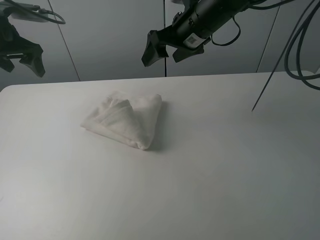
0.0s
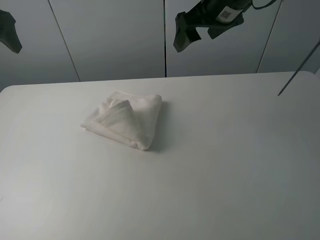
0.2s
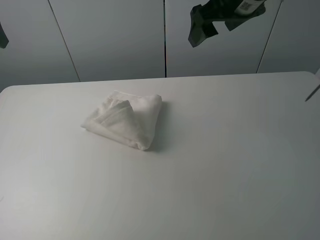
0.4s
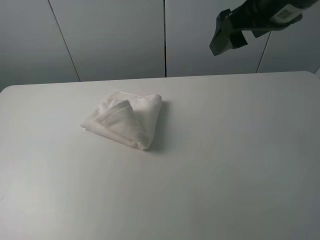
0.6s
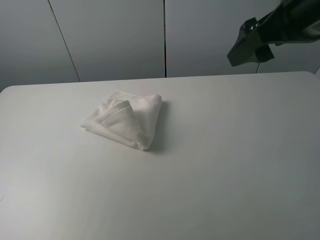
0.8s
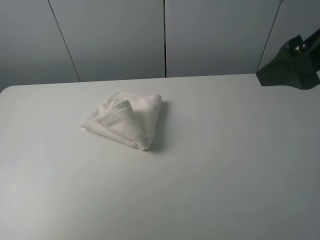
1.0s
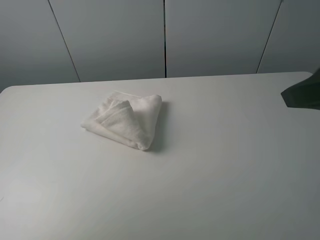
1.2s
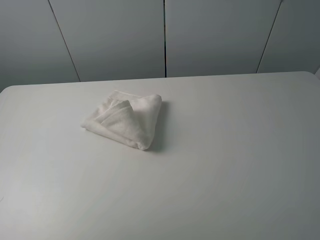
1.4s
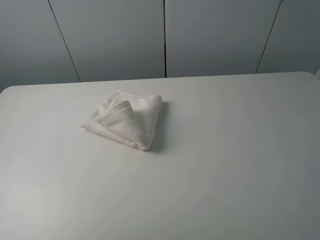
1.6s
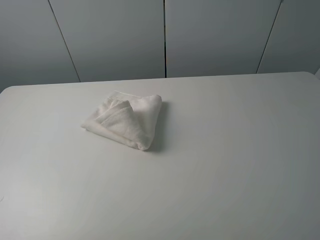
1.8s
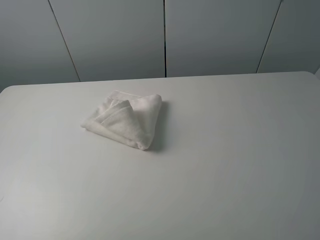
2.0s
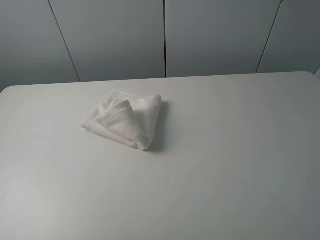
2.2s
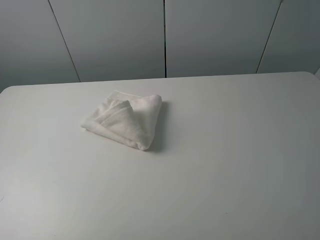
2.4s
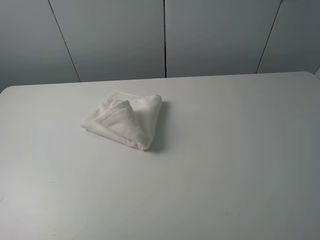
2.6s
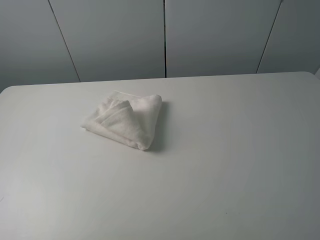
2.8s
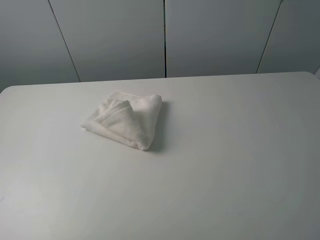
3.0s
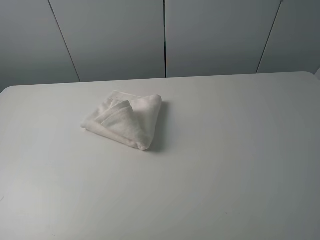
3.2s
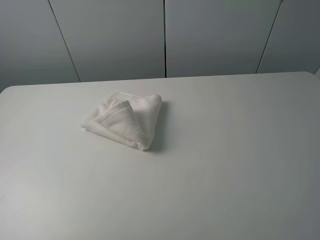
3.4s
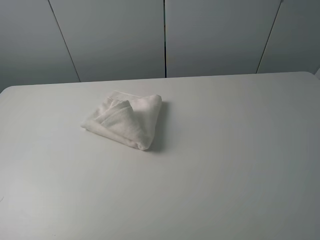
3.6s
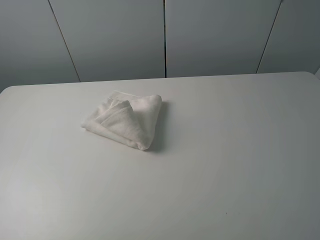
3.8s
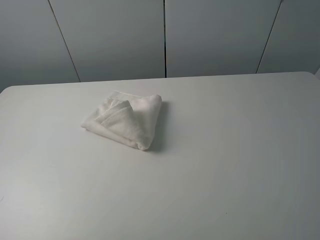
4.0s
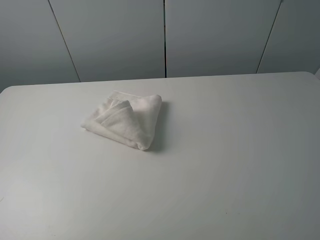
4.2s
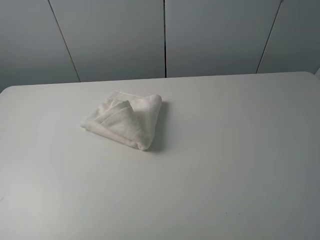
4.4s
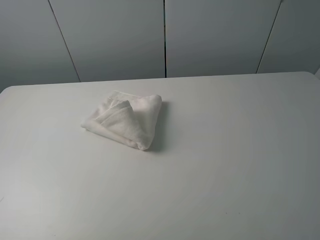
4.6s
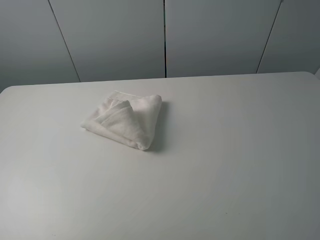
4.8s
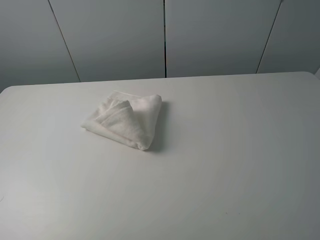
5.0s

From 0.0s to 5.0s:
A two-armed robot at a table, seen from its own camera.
Task of the whole recording: fold the towels on the table.
From 0.0s to 1.6s: The left gripper goes about 35 cm backward, while the right gripper goes some 40 cm backward and to the right.
From 3.4s to 5.0s: Both grippers stay put.

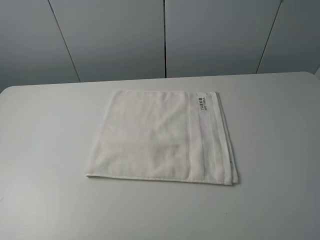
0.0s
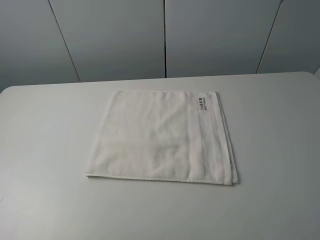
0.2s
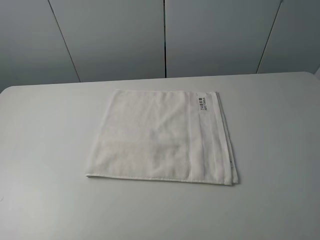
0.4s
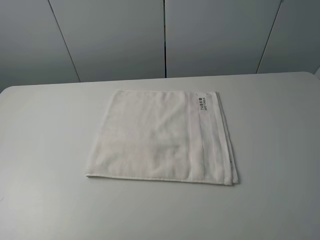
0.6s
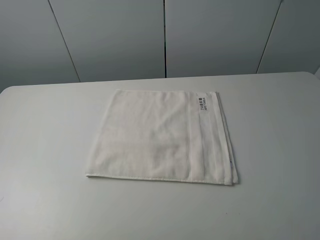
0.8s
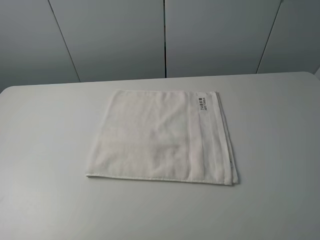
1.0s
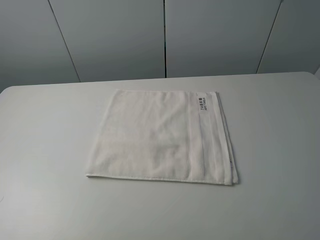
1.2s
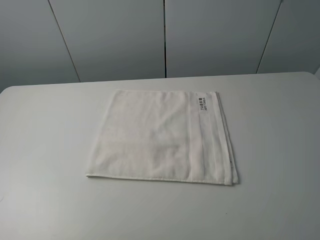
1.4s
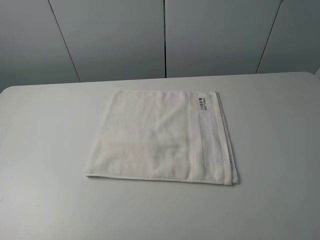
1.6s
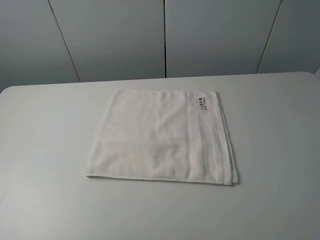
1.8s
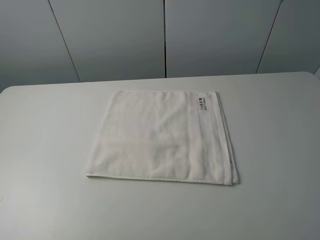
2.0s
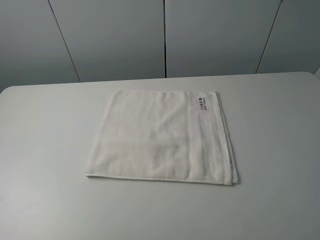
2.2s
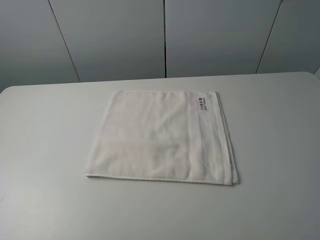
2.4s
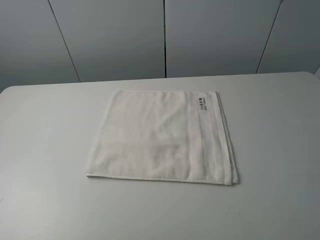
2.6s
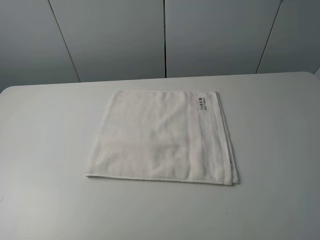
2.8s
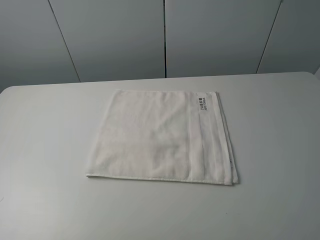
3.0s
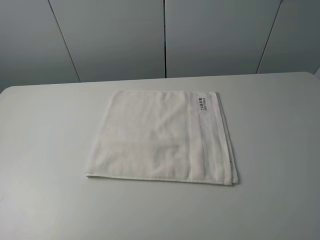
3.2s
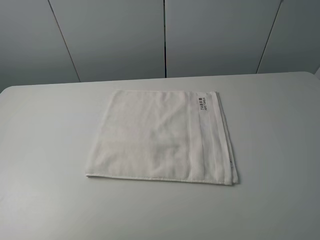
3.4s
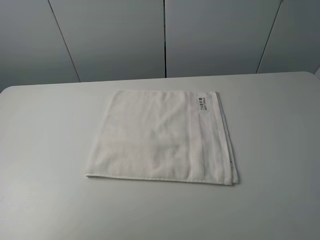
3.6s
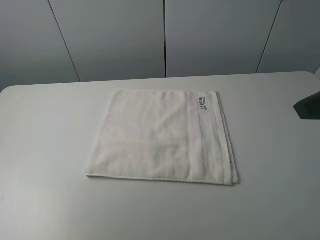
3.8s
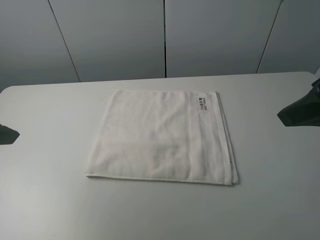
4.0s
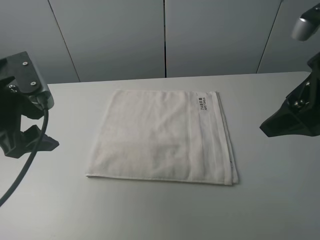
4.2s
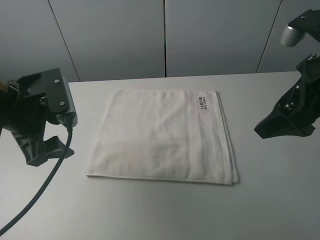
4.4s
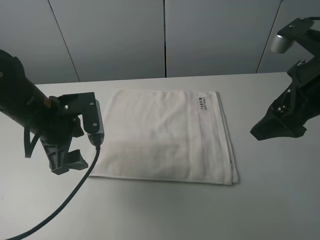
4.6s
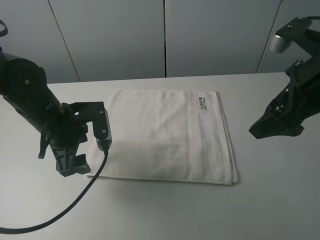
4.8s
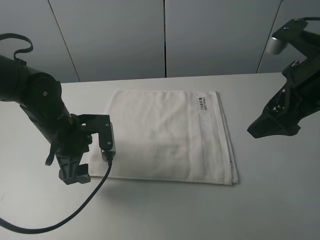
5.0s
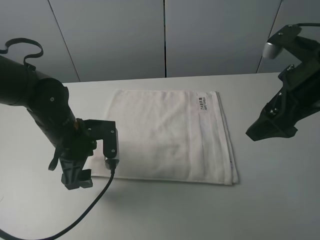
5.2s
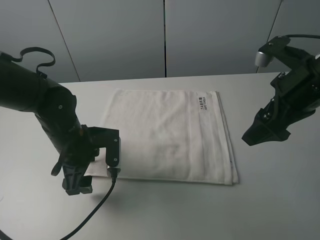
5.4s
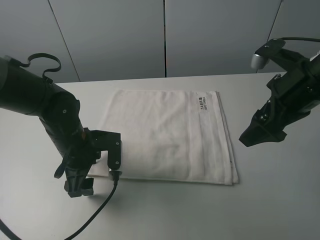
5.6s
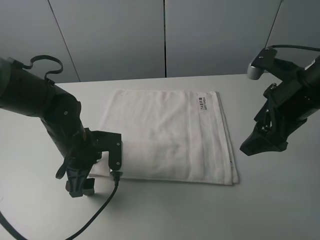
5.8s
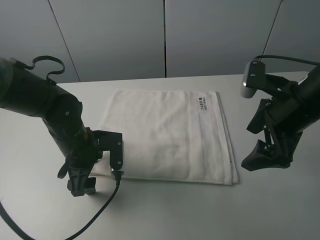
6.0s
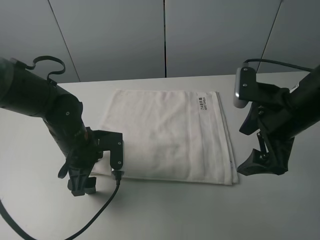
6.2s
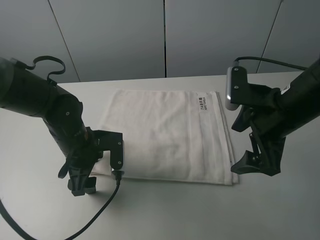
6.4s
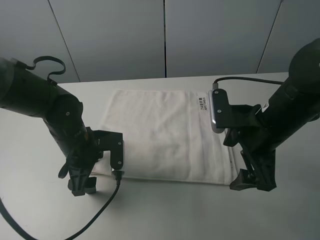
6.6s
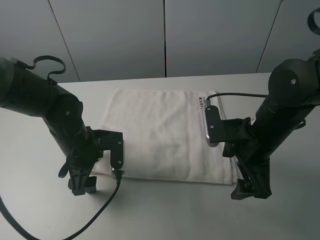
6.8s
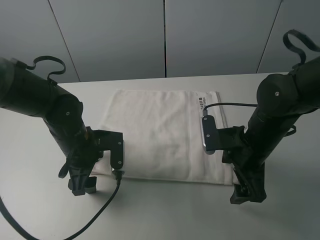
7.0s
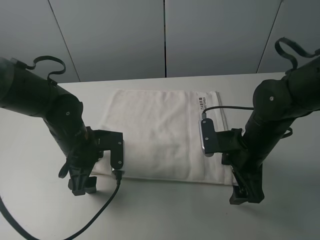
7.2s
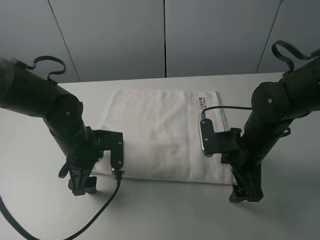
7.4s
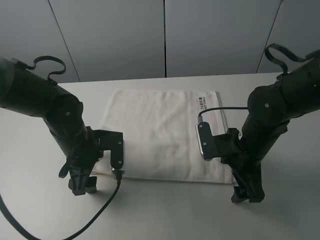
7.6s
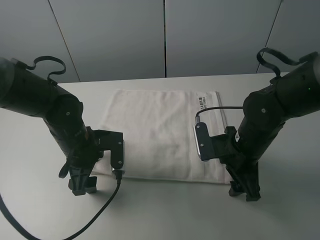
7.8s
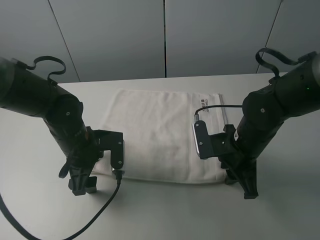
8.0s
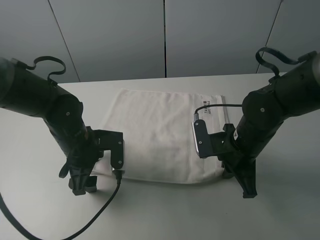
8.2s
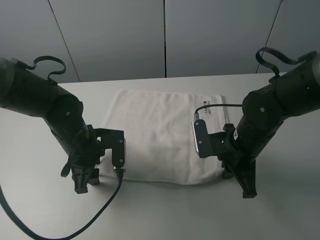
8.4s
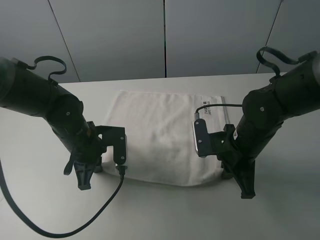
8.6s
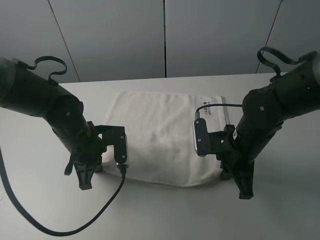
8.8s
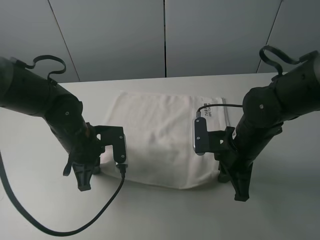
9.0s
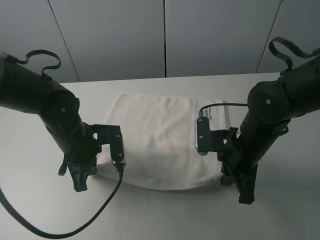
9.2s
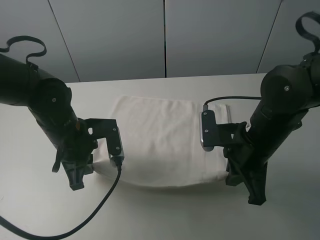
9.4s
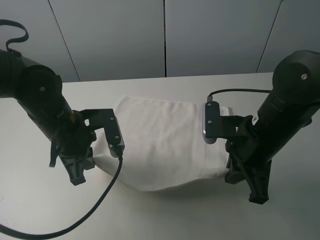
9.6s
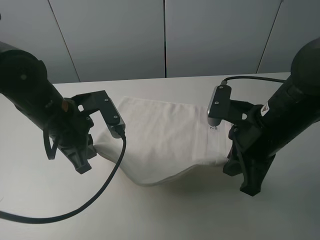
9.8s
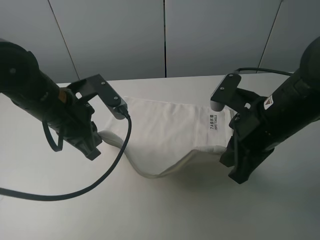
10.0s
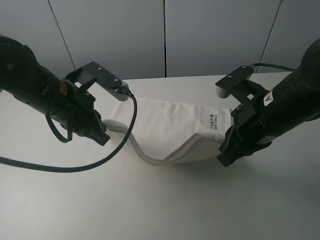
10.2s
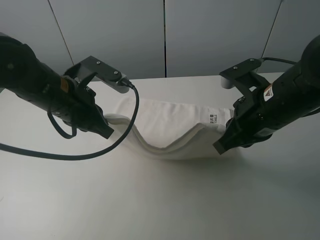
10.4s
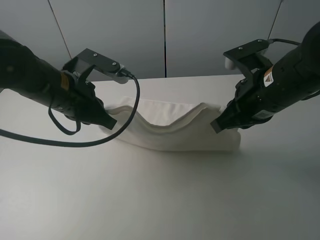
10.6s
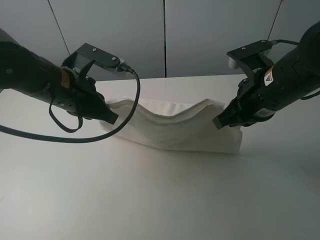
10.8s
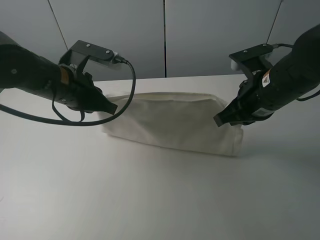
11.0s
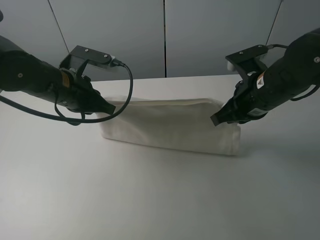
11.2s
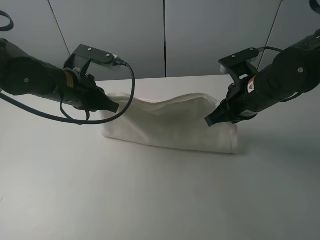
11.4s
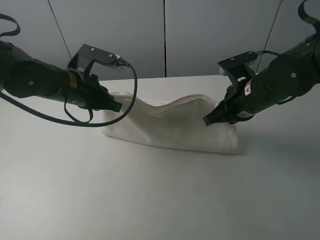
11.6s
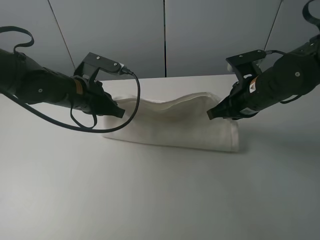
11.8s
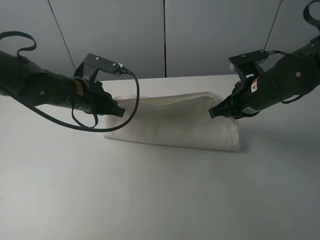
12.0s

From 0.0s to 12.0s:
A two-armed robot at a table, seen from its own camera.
Task of the whole recording: fold the towels on the table.
Step, from 0.0s to 8.0s: Grasp the white towel with the right gripper.
Step, from 8.2s to 8.6s: Grasp the white towel with the left gripper.
From 0.0s to 1.6s: The two grippers keep their place.
From 3.0s to 4.4s: The left gripper goes approximately 25 cm forward and to the right. The right gripper is displaced forward by about 20 cm.
From 4.4s to 6.0s: The left gripper moves downward and to the right, some 15 cm; the right gripper travels downward by about 5 cm.
From 6.0s to 7.6s: The right gripper moves downward, about 10 cm.
From 7.6s to 9.0s: The right gripper closes its fingers. The left gripper closes up.
From 9.0s to 10.4s: The two grippers go some 10 cm upward.
From 10.4s to 12.0s: The left gripper shifts some 10 cm forward and downward, while the right gripper shifts about 10 cm forward.

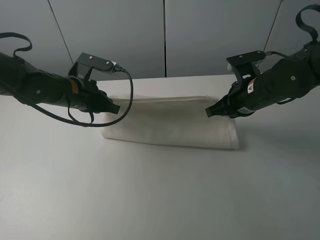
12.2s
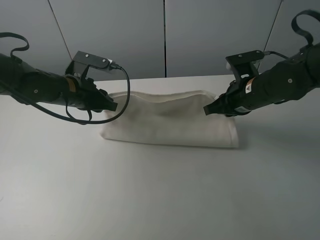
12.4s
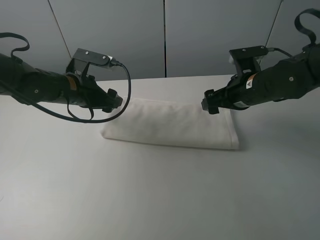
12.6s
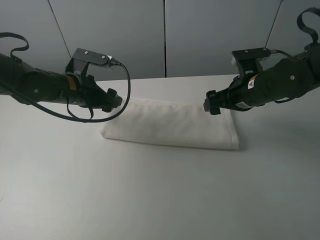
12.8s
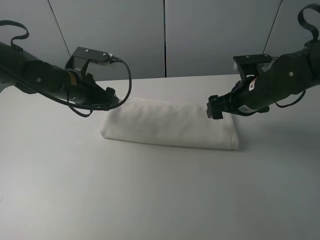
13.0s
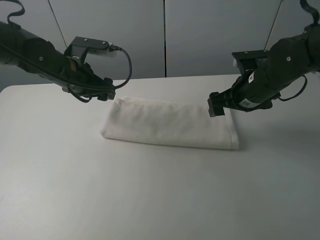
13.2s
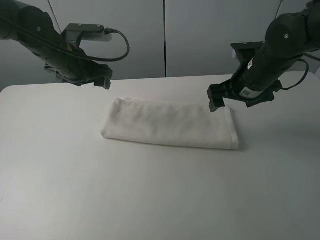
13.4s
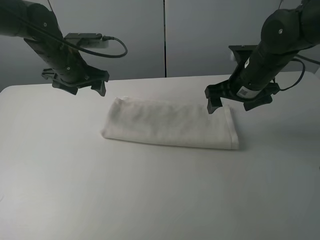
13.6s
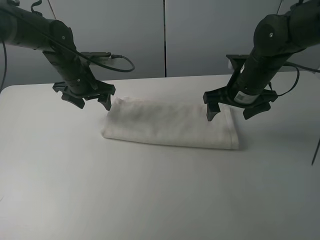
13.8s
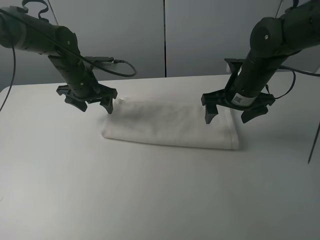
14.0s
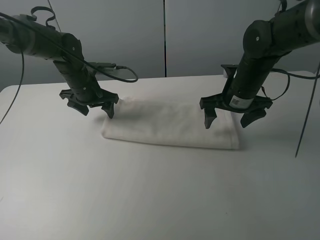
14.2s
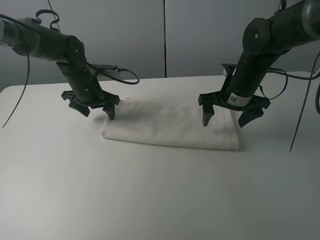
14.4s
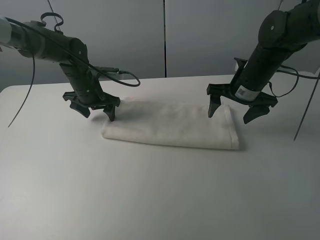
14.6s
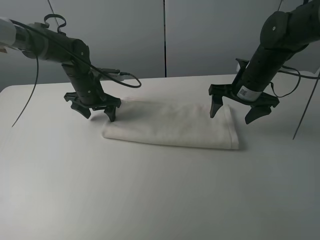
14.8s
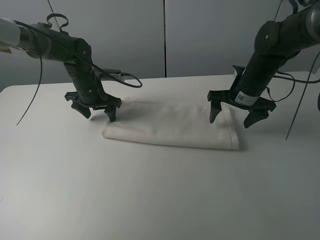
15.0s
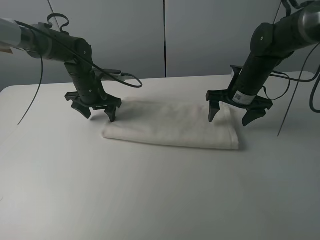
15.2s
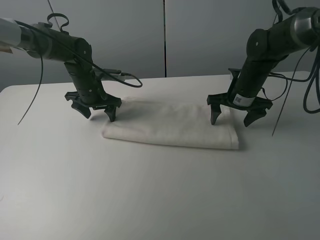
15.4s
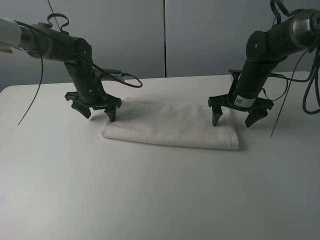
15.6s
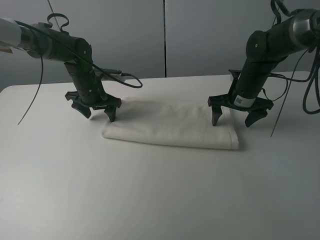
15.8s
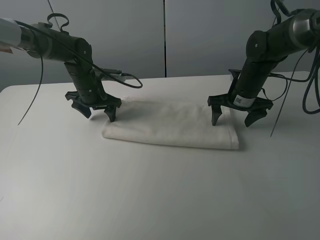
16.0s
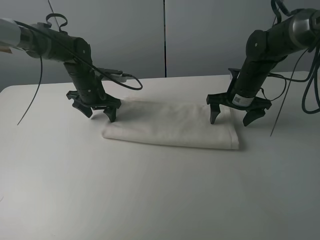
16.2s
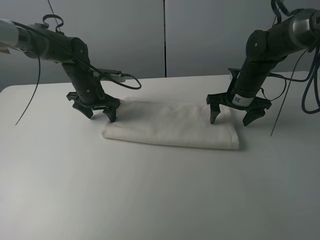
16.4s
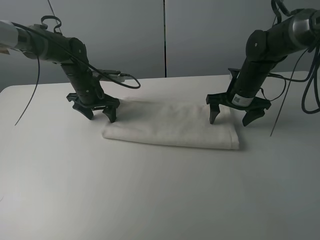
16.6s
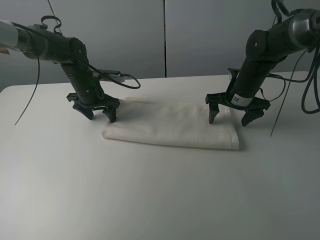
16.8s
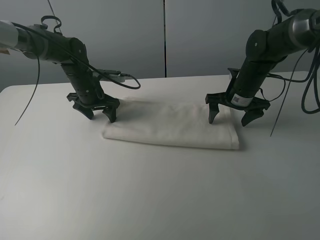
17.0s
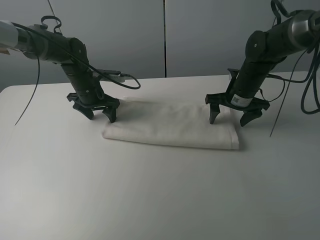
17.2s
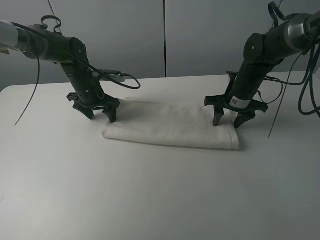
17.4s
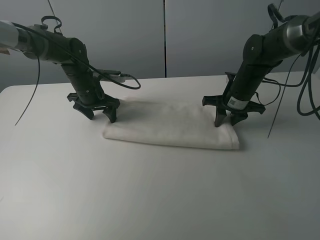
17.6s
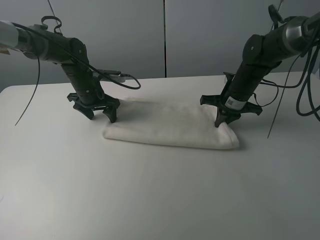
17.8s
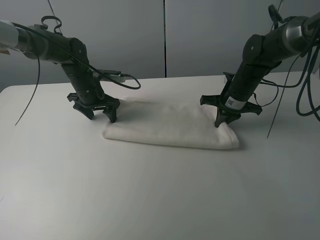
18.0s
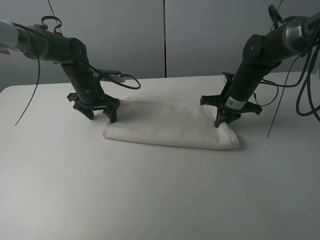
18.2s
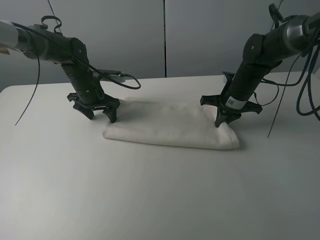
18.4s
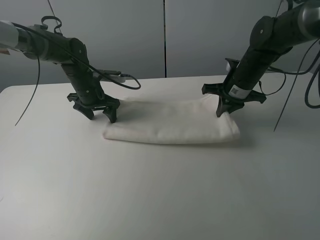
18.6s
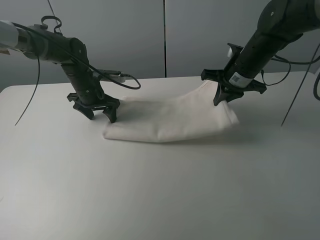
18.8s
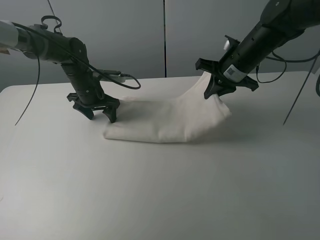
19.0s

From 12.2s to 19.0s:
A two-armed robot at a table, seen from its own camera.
Task of the whole recording: fold the towels on the table.
Step, from 12.8s to 14.4s: Press on the white towel with the left gripper.
From 12.2s to 13.6s: The right gripper opens its fingers. Meanwhile the left gripper shifts about 5 cm forward, and opens up.
From 13.6s to 15.0s: The left gripper is displaced downward by some 10 cm. Meanwhile the right gripper shifts by approximately 5 cm.
From 15.0s to 16.2s: The grippers stay close to where they were, moving slightly.
From 16.2s to 17.6s: The right gripper closes.
From 17.6s to 19.0s: The right gripper goes roughly 10 cm upward.
